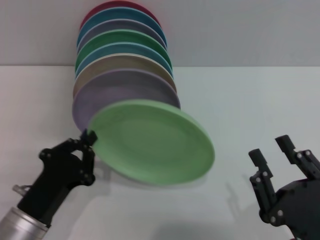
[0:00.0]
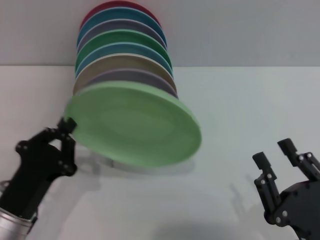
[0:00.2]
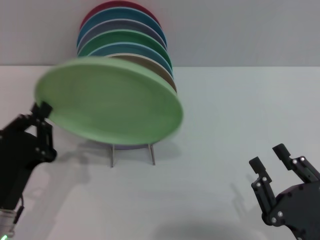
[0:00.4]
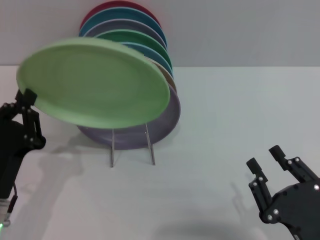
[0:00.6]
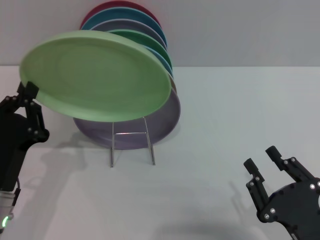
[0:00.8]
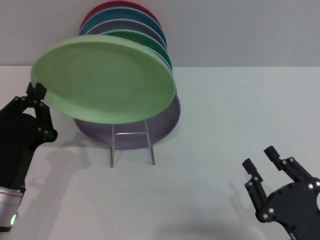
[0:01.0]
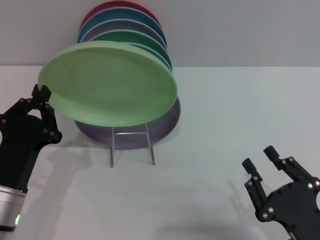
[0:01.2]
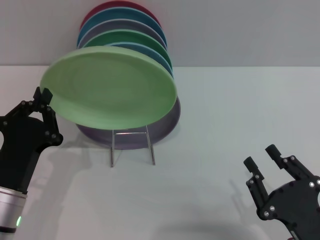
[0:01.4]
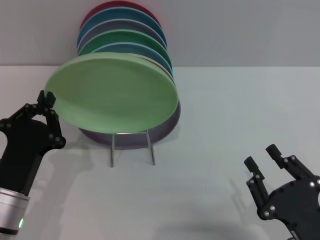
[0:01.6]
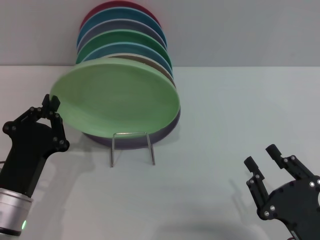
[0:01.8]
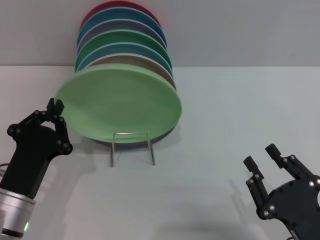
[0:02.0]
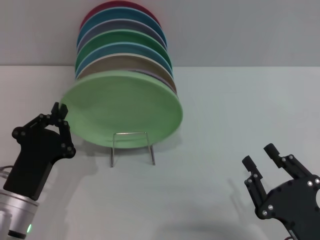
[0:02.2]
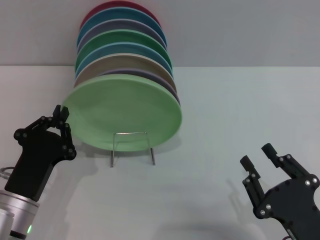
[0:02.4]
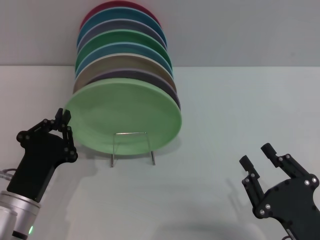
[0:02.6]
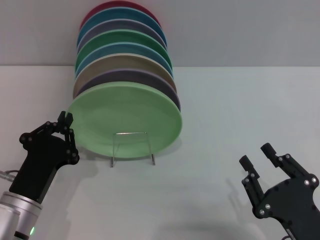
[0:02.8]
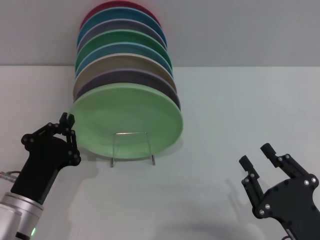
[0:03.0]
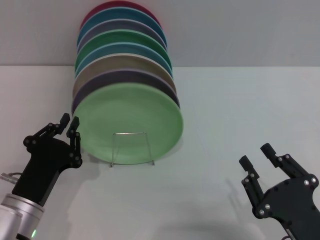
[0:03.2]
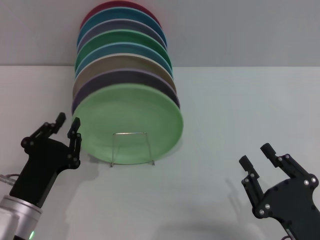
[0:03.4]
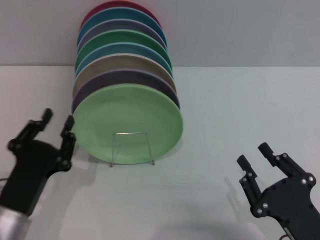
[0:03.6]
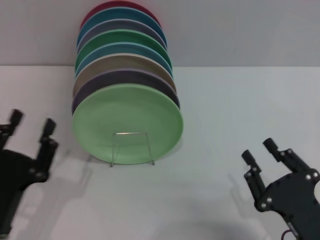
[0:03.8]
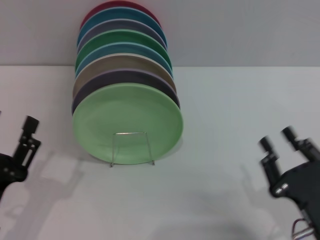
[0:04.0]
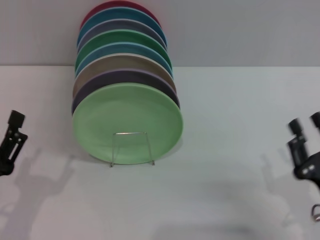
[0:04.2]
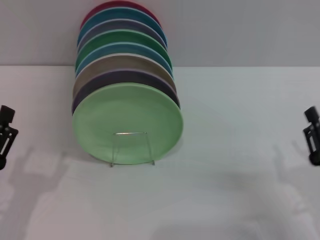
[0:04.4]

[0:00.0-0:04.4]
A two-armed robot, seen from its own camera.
Task of the whole recording: Grip the plate with one hand, pass it to the other, then set it on the shelf.
Step, 0:00.0 to 0:03.6: Place the plate on the shelf with the left gripper.
0:03.0 to 0:04.4: The right gripper shifts about 5 cm to the right; the left gripper travels to the left by about 5 cm, and opens its fingers.

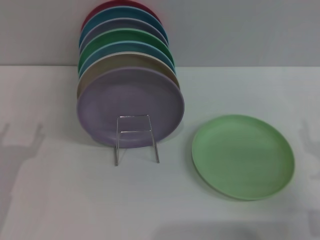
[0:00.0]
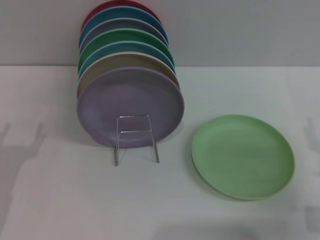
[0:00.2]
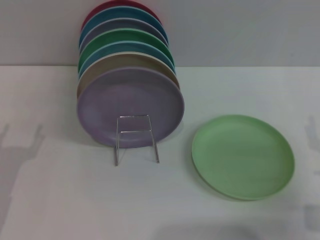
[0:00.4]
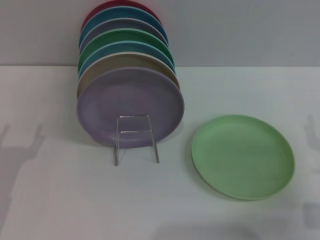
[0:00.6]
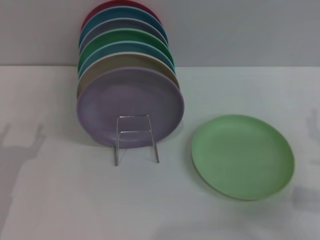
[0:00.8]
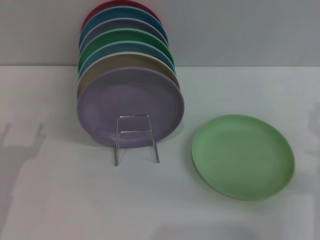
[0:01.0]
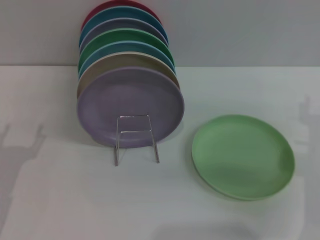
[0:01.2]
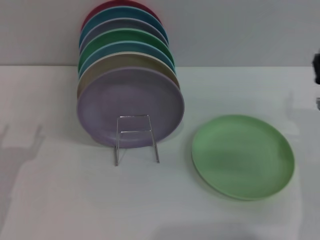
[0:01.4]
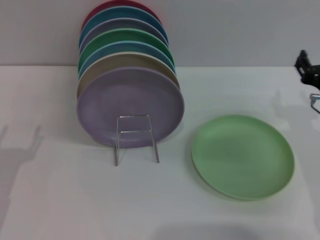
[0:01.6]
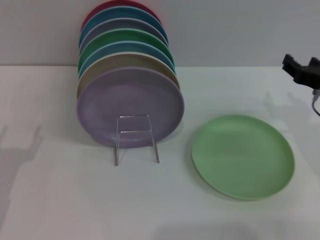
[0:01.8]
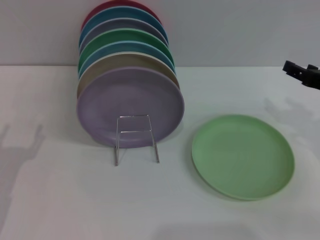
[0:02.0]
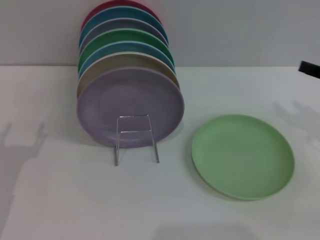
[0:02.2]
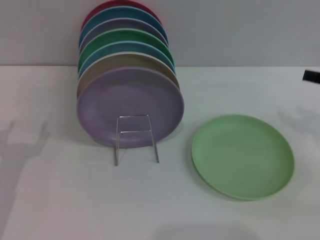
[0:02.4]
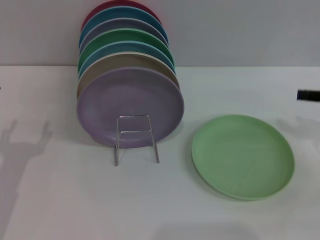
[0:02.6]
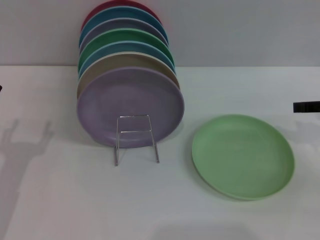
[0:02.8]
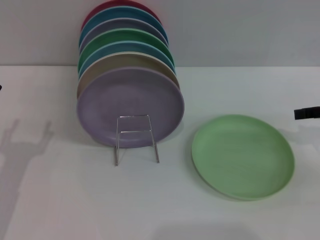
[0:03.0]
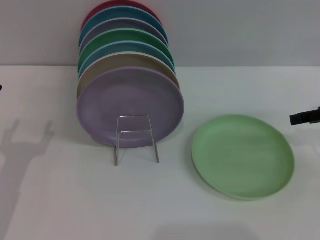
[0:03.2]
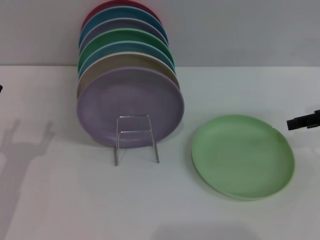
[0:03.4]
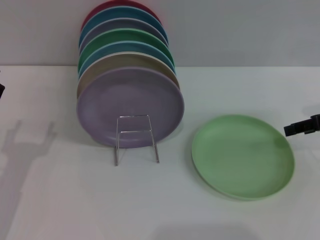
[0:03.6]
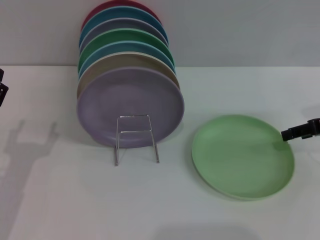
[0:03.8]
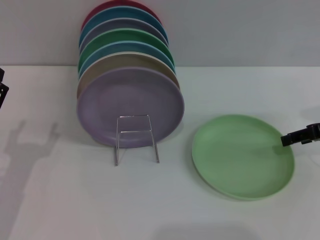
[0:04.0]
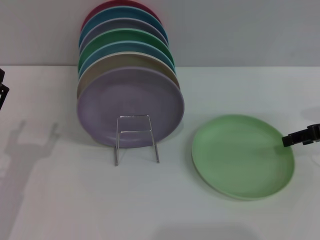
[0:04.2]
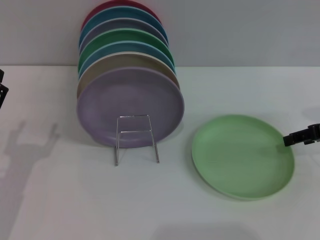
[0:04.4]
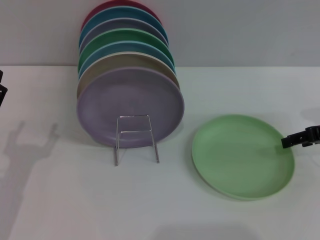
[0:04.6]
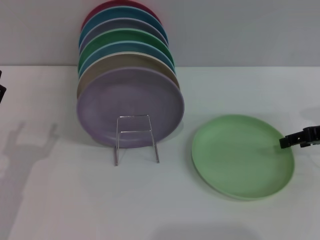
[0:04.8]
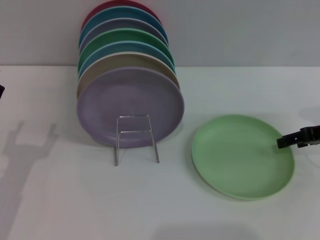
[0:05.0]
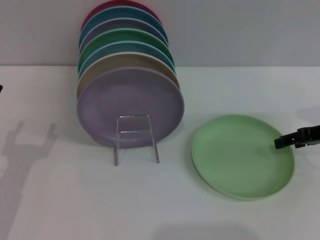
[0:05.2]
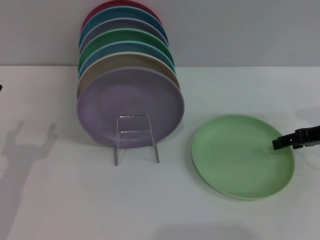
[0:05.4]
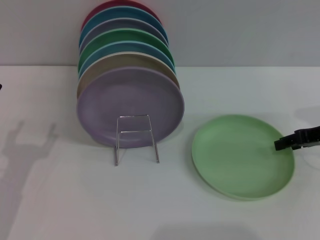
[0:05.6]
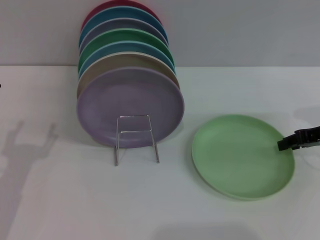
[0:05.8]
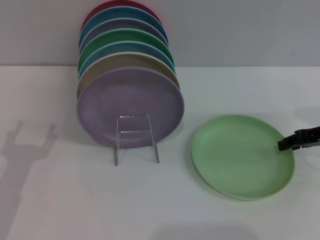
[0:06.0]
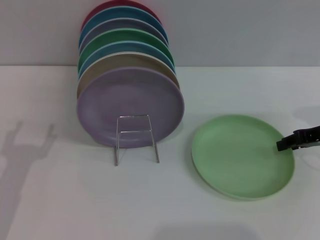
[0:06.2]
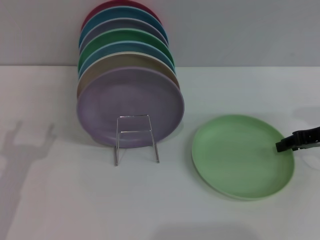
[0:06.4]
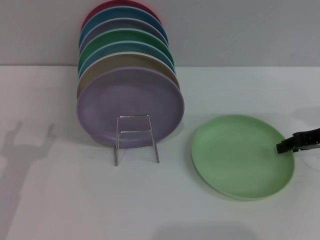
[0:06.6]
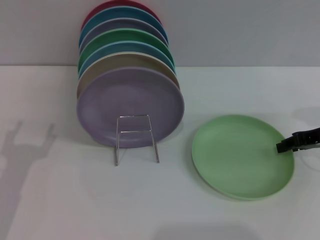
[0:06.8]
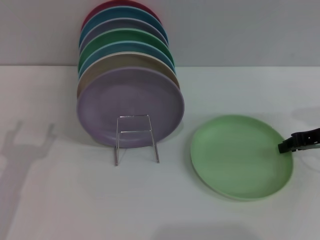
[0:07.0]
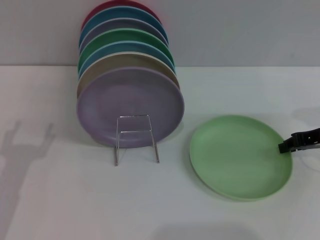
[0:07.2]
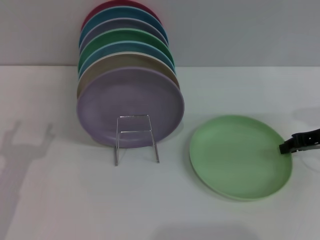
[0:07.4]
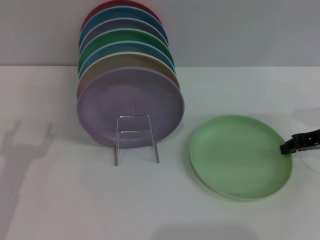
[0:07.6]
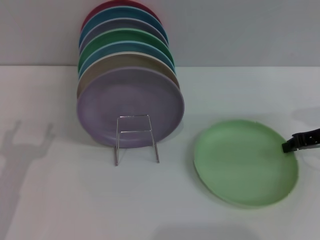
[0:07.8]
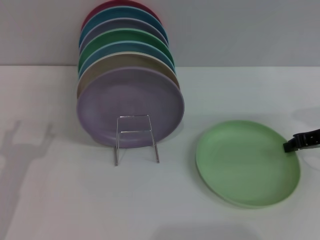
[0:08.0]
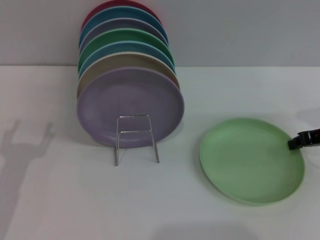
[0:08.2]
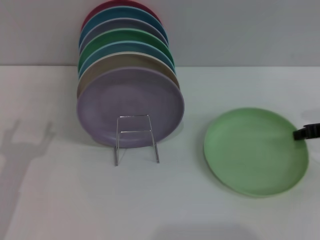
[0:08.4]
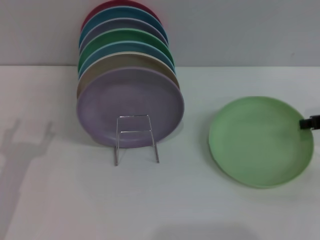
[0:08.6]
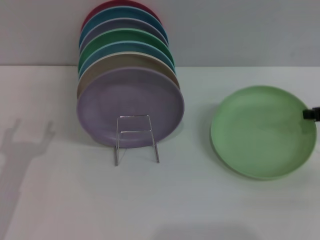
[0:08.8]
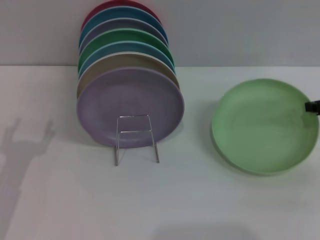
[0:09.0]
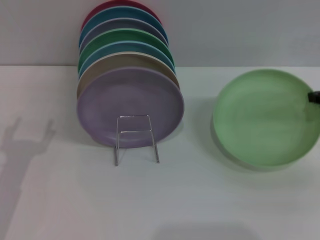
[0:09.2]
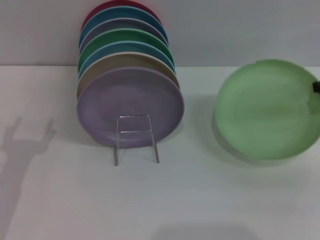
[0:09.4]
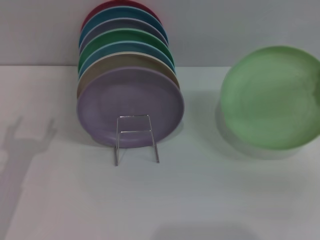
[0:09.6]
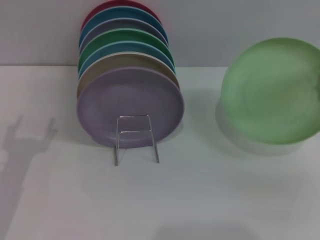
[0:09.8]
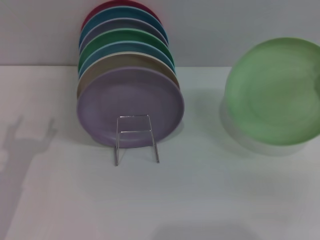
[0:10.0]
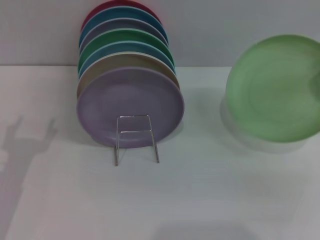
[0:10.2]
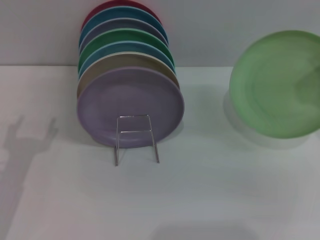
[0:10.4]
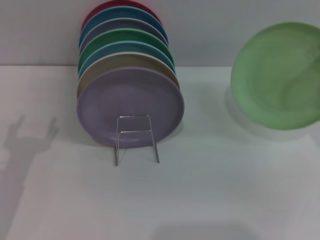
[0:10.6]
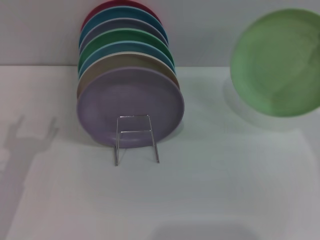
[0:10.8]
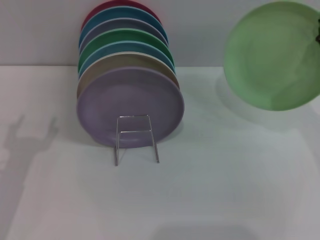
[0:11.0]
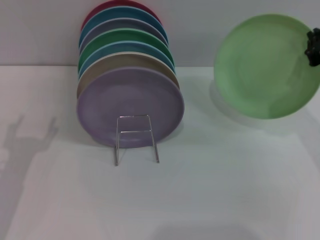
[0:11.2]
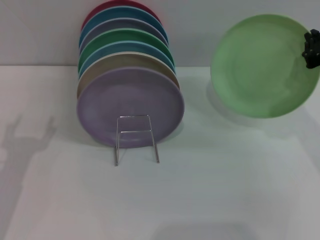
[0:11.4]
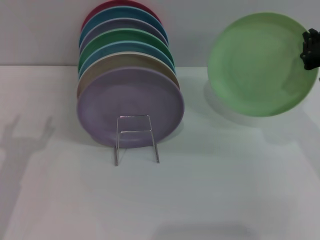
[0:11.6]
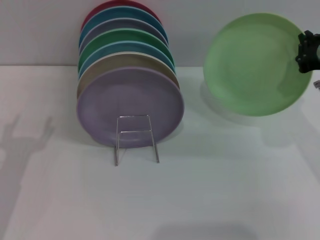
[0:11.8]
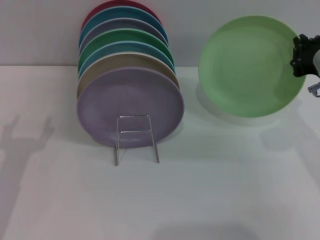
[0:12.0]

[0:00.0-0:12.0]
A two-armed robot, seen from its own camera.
Task of the whole recording: Grip the plate with one hand, pass it to the other, then set it on the shelf.
Step, 0:00.0 to 0:10.0: Pick up the plate with the right gripper.
0:00.0 to 0:01.6: The right gripper is displaced forward and upward by some 10 cm.
0:01.6 to 0:03.0: The right gripper shifts some 10 cm to the right and upward.
0:03.0 to 0:04.4: The grippers make only small movements.
0:06.0 to 0:07.6: The right gripper closes up.
0:09.0 to 0:10.4: The right gripper is displaced upward by approximately 10 cm.
0:10.4 to 0:12.0: The right gripper travels downward by approximately 10 cm.

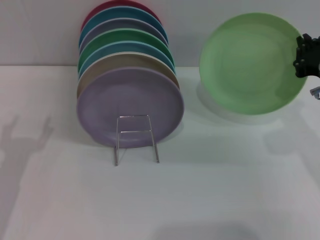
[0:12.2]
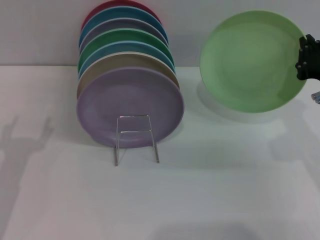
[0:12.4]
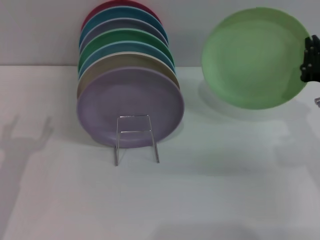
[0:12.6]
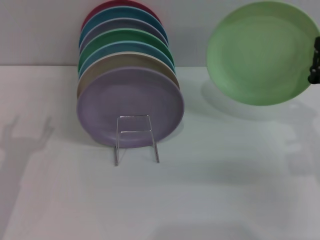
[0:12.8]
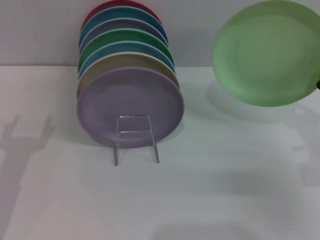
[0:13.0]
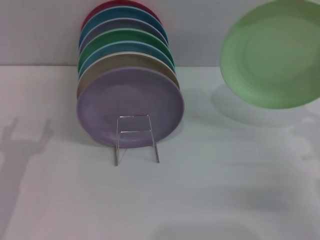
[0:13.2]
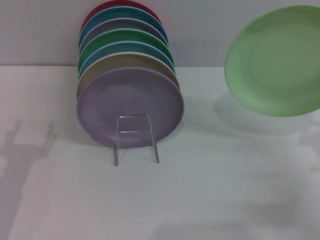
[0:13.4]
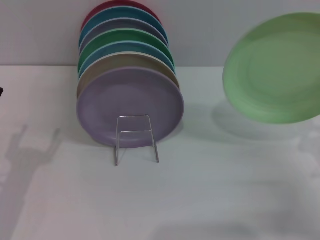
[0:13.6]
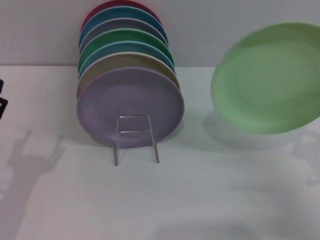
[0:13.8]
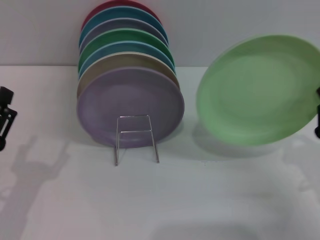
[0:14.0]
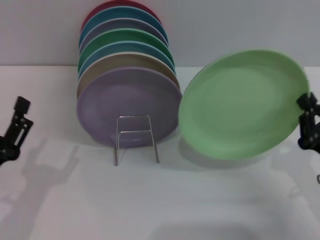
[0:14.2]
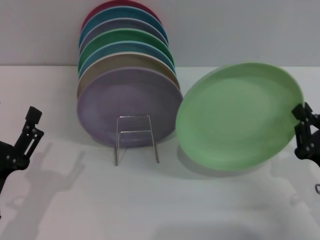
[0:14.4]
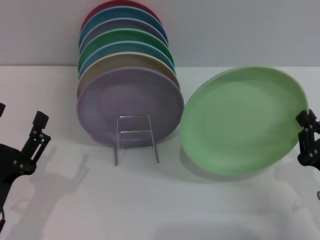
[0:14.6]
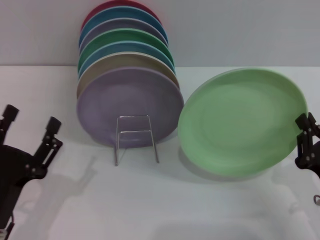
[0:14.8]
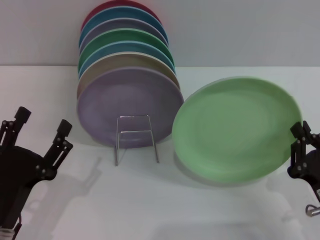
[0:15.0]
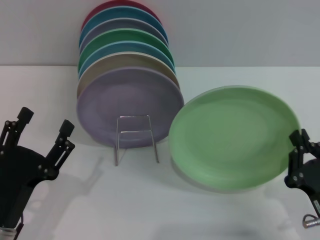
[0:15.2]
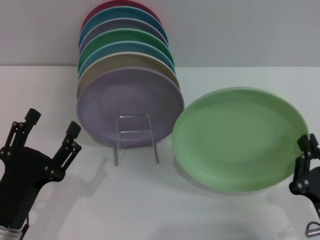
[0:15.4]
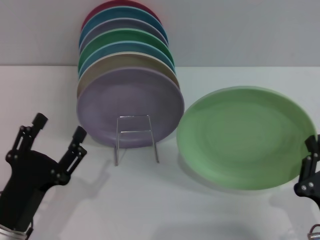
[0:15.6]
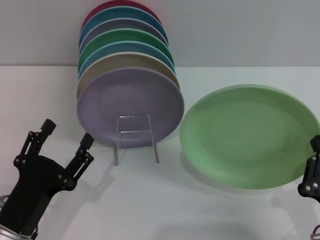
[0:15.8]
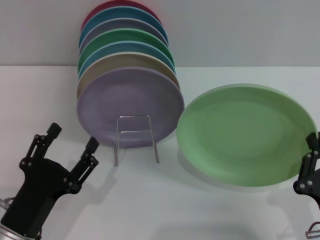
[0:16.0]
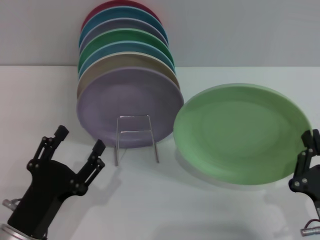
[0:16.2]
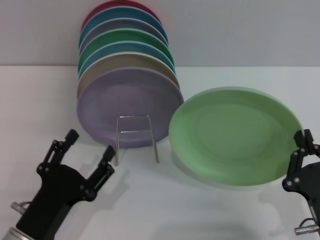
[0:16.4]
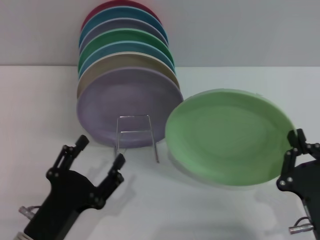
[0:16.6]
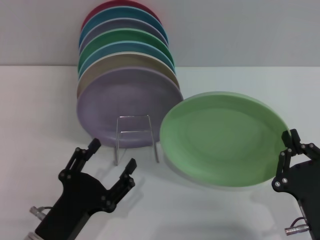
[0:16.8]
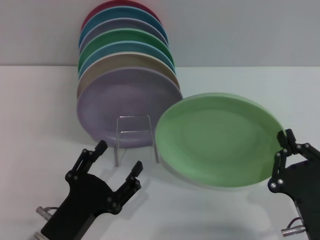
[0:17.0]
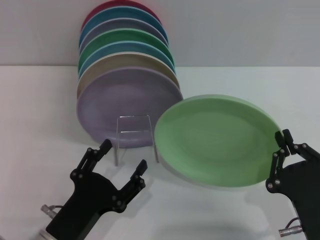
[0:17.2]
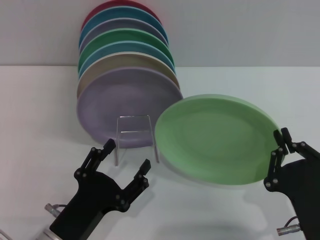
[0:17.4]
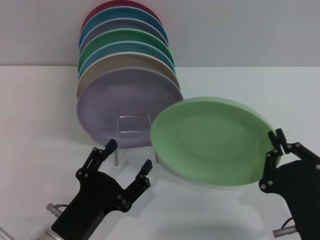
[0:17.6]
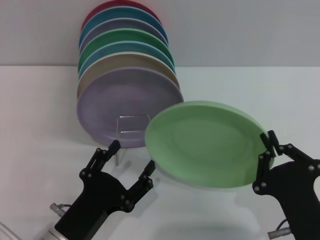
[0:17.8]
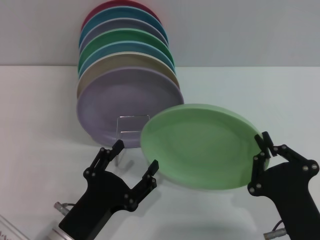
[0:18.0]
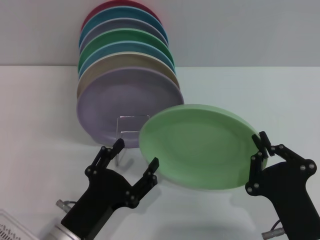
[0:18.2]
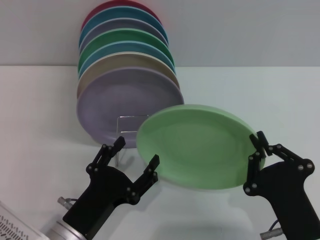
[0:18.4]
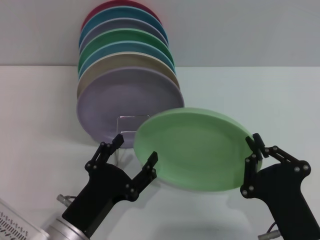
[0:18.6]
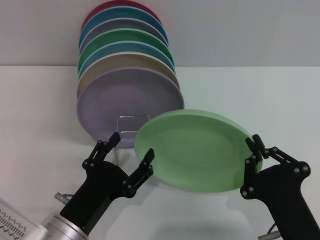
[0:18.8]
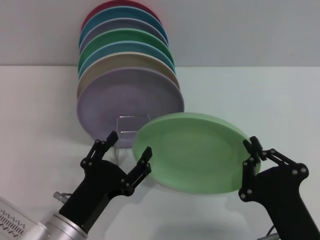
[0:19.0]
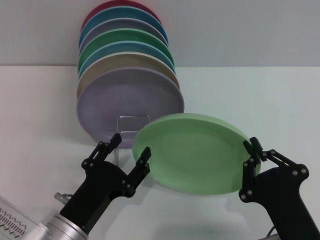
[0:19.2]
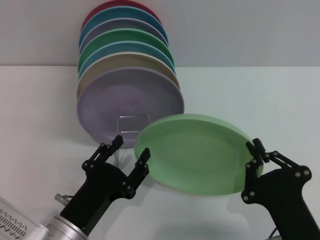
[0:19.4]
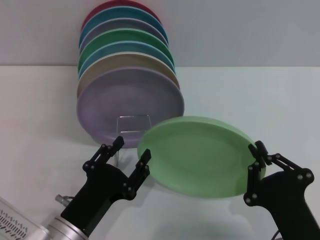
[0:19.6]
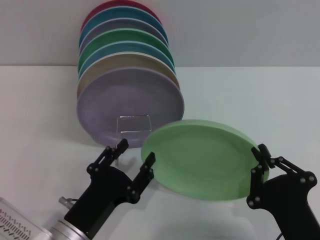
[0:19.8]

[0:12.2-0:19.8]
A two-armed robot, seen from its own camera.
Task of the whole recording: Grip the plate with one hand, pass it to the other, then set it on the shelf.
0:12.2 to 0:13.8: The right gripper moves downward and backward, approximately 15 cm.
0:13.8 to 0:15.2: The right gripper goes some 10 cm backward and to the left; the left gripper changes place by roughly 5 cm.
0:15.2 to 0:16.8: The left gripper shifts by approximately 5 cm.
0:16.8 to 0:19.8: The grippers move only a little.
